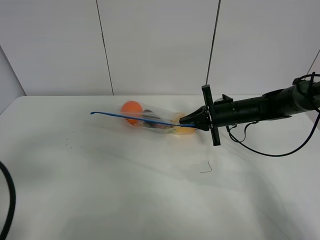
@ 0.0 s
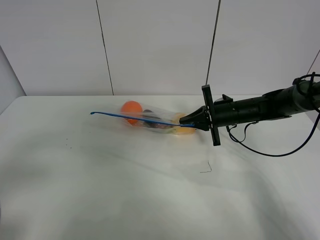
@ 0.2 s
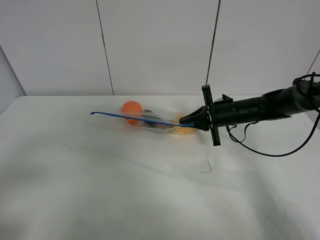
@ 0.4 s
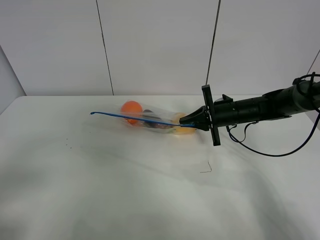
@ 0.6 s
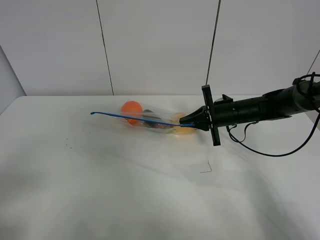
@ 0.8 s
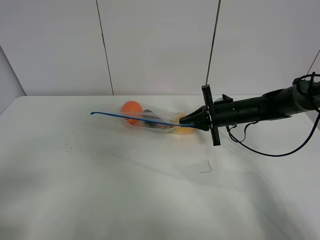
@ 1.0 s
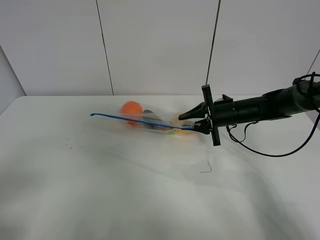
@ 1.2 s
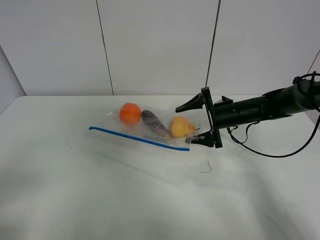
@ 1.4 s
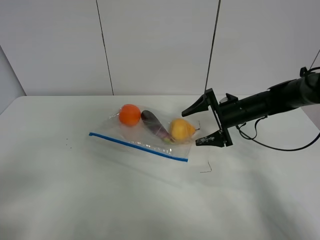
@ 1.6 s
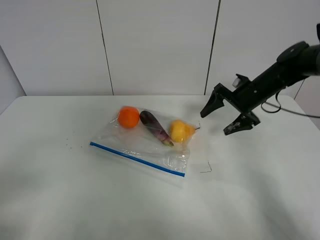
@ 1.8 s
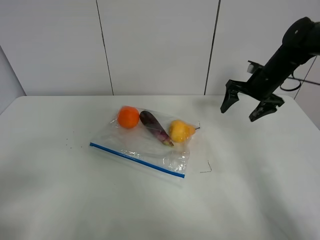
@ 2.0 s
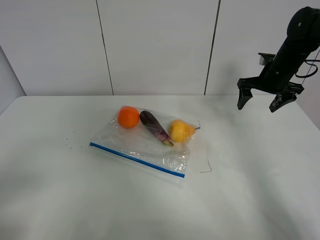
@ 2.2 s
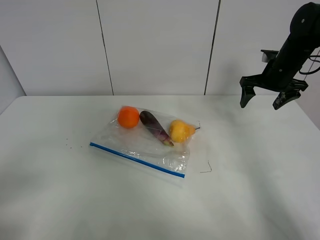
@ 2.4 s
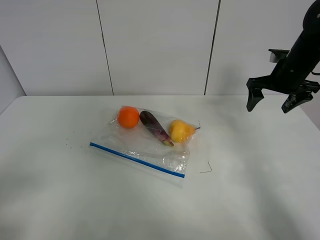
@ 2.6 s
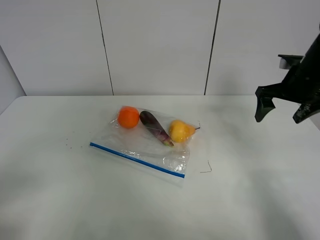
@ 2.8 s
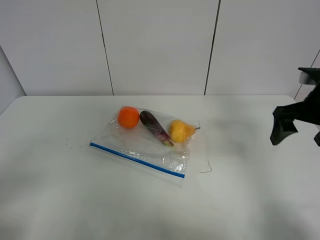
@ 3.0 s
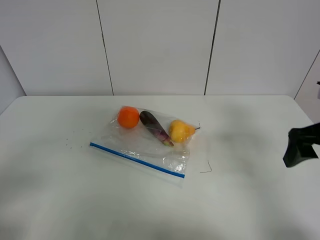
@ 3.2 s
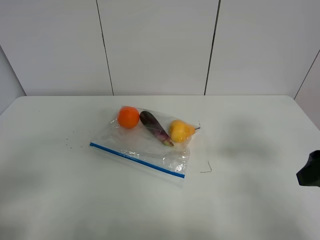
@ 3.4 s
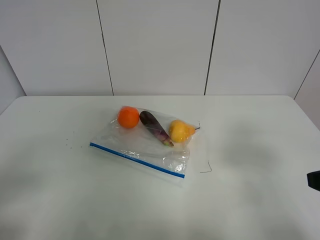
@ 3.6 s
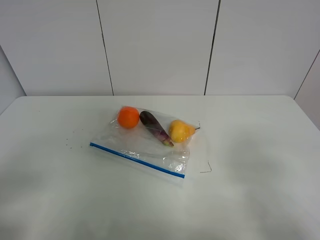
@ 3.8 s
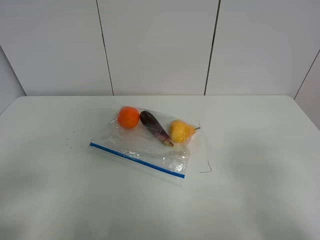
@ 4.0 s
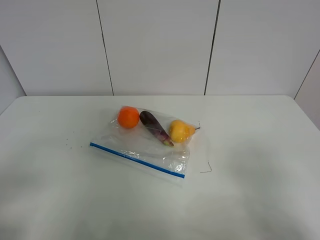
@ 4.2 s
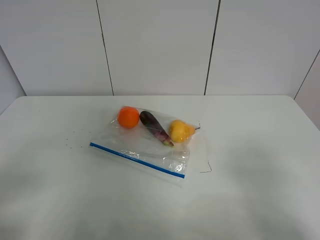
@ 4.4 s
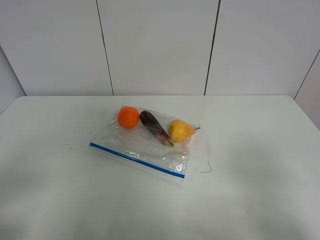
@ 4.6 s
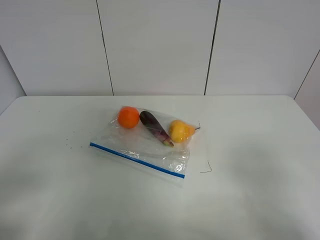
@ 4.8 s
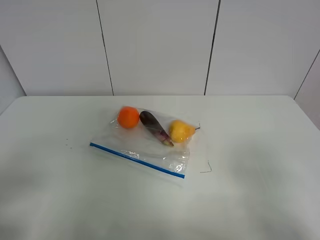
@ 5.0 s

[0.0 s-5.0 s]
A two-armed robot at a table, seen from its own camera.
0.0 to 1.6 s: The right gripper opens its fingers; the left gripper goes about 5 cm backward.
1.6 to 3.4 s: The right gripper heads backward and upward, covering about 30 cm.
3.4 to 5.0 s: The right gripper goes about 15 cm backward.
